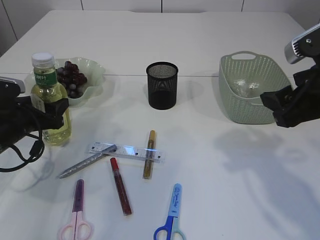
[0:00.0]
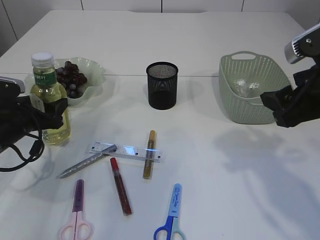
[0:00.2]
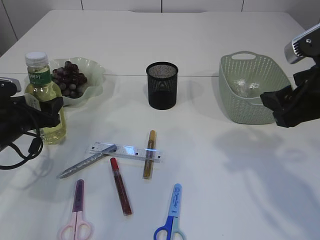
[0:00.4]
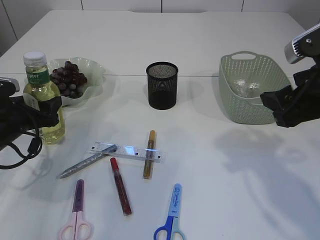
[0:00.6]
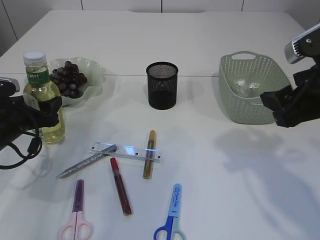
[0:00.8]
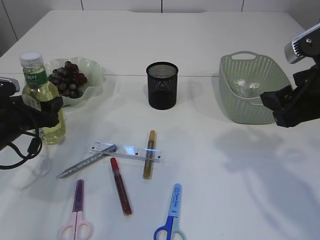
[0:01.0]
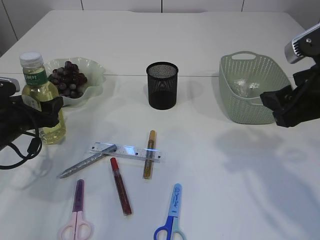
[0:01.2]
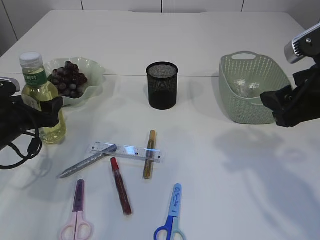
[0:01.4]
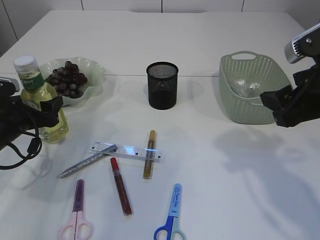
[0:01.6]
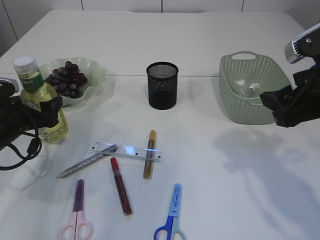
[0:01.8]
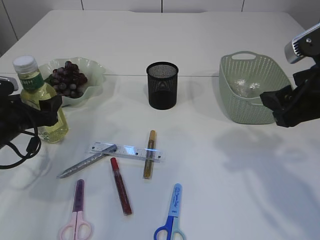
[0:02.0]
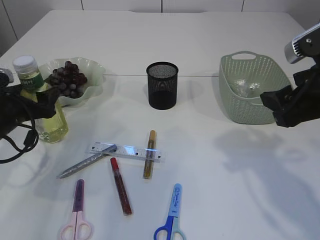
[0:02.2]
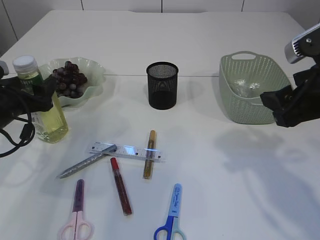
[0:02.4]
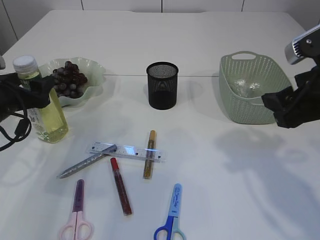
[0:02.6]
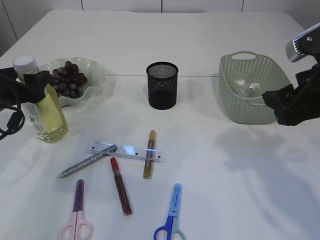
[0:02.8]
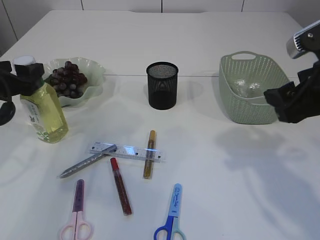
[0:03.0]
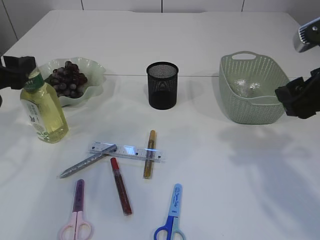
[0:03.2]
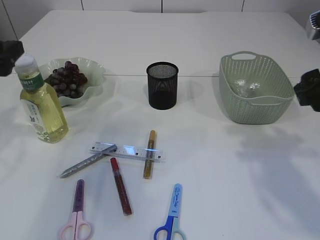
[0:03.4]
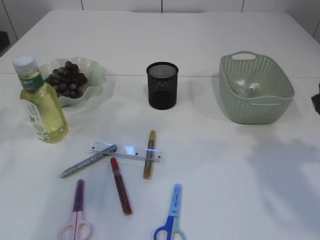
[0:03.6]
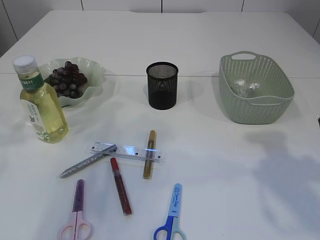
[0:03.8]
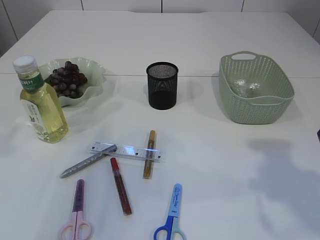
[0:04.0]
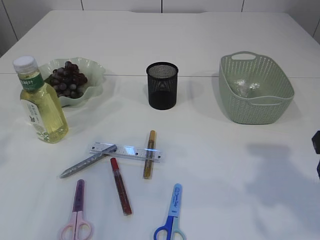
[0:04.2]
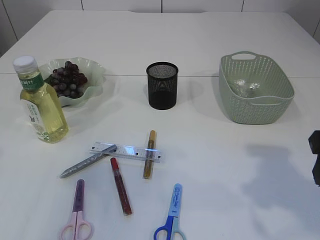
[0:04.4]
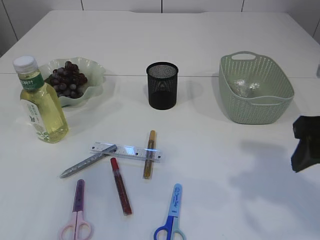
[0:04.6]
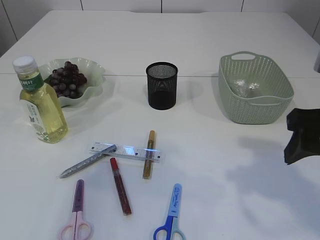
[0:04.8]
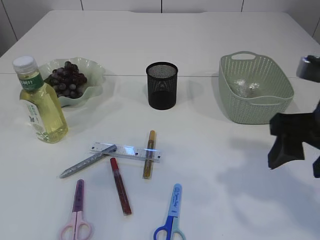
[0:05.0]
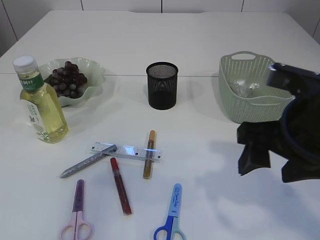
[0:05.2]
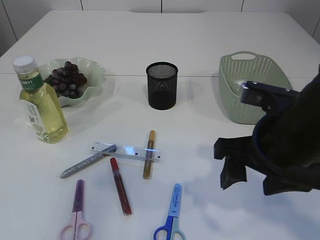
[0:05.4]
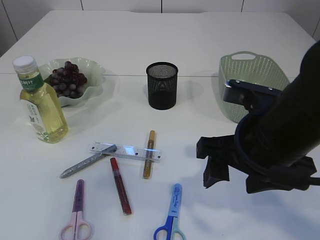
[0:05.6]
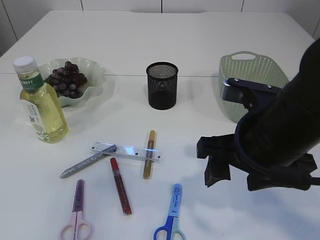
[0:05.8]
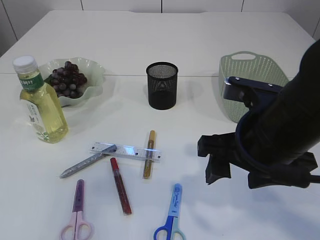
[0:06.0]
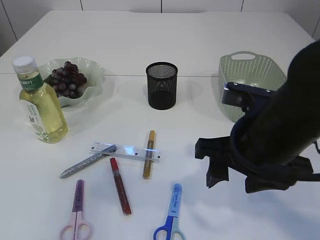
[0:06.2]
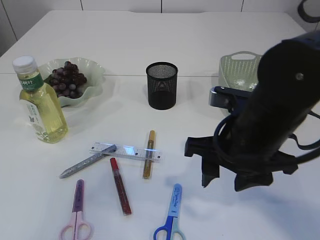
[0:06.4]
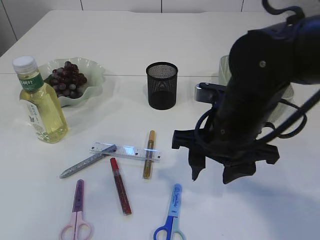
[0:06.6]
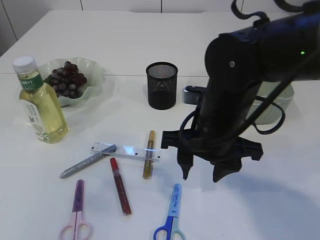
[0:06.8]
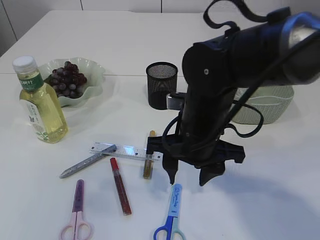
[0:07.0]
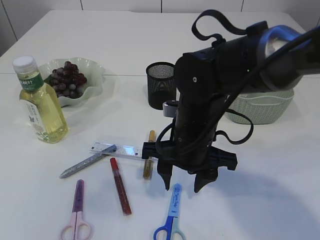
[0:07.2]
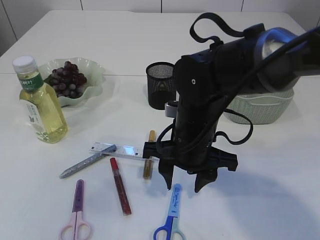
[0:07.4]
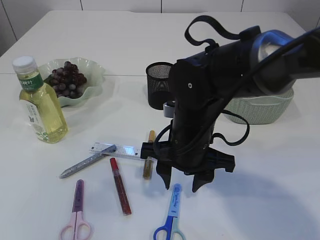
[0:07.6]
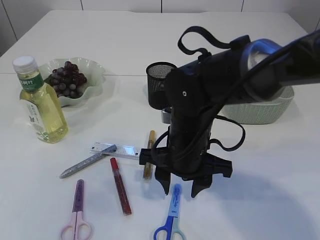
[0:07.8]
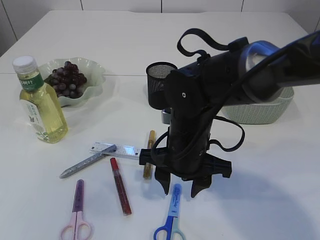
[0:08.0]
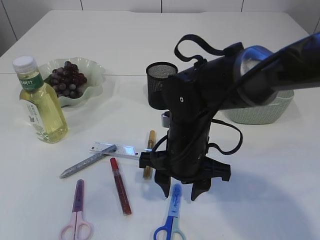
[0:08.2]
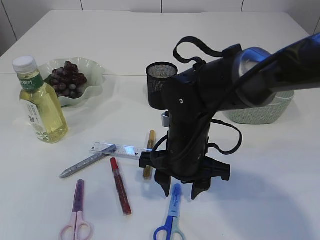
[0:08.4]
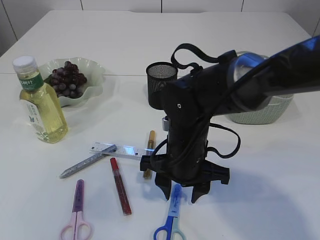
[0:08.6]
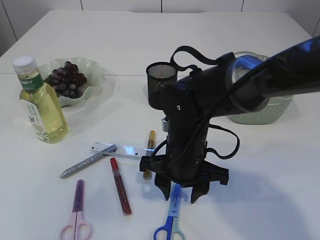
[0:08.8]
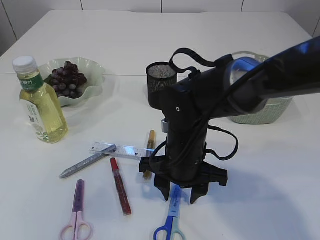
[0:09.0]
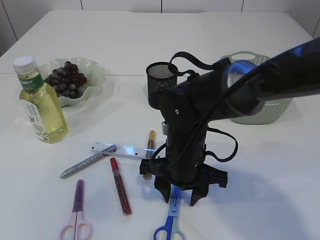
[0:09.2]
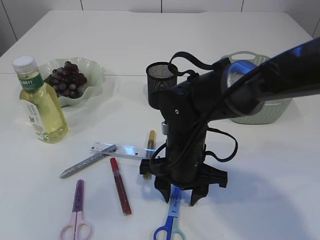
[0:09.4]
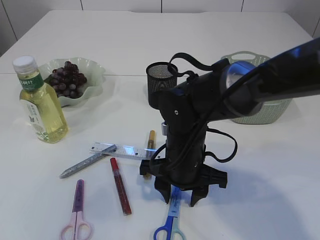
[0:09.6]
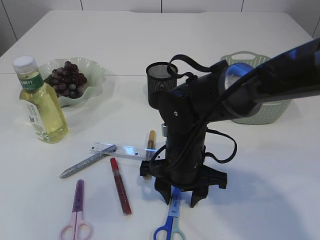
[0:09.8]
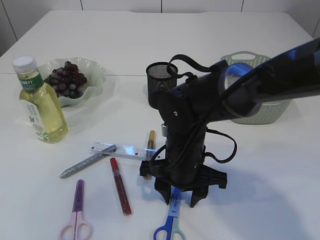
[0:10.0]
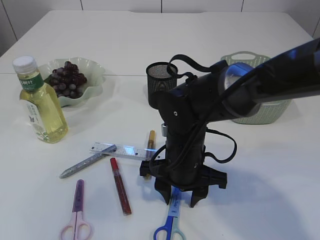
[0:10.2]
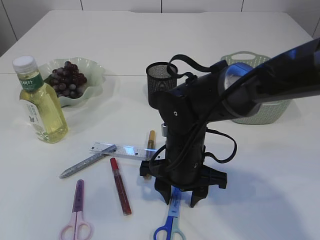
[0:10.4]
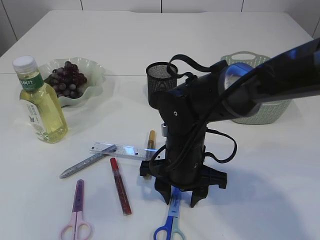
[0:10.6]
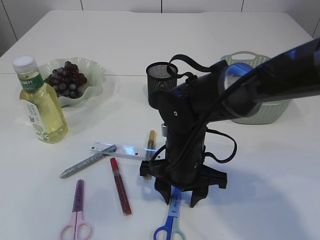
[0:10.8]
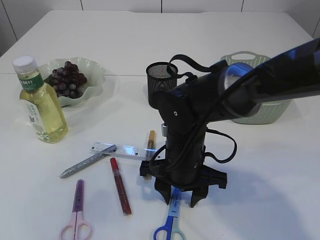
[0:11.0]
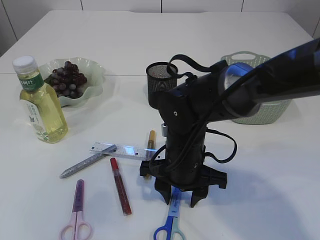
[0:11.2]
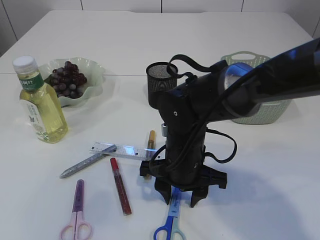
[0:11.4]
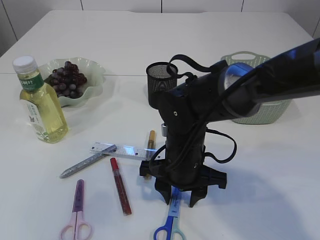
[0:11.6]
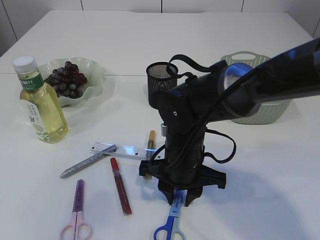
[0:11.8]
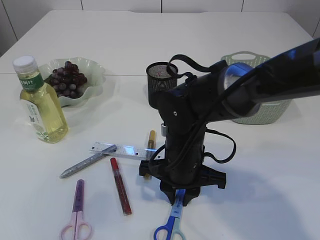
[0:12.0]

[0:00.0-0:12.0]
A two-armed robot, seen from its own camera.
Step, 0:00.0 to 0:03.4: Place the bottle.
0:00.0 to 0:01.6: Neither gripper changes place.
0:01.6 to 0:03.0: The left gripper travels upward by some 10 cm.
0:03.0 to 0:04.4: The right gripper ends up approximately 5 cm from where it was; the left gripper is displaced backward and upward by approximately 20 cm.
0:04.4 to 0:06.0: The right gripper moves to the left, about 10 cm; the left gripper travels upward by some 5 cm.
0:06.0 to 0:07.6: The right gripper is displaced to the left, forward and downward by approximately 15 cm.
0:07.6 to 0:09.0: The grippers stay close to where they were, moving slightly.
0:09.0 to 0:10.4: Both grippers stay about where they are.
0:10.4 to 0:12.0: The right gripper closes up.

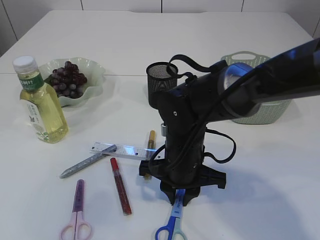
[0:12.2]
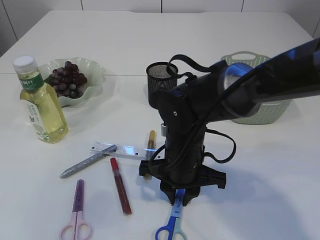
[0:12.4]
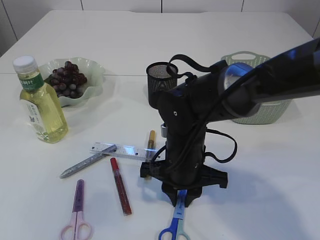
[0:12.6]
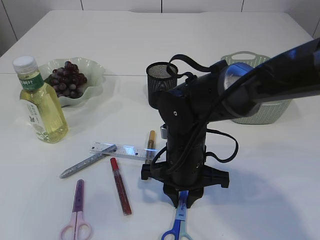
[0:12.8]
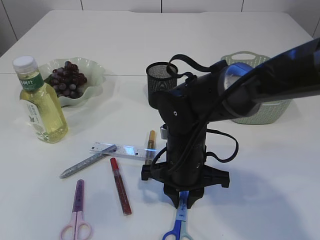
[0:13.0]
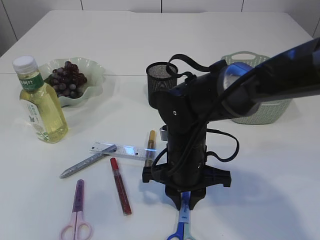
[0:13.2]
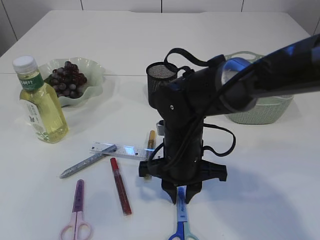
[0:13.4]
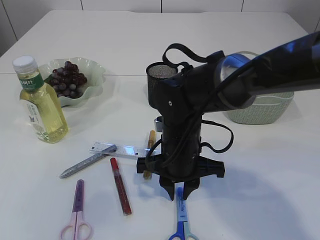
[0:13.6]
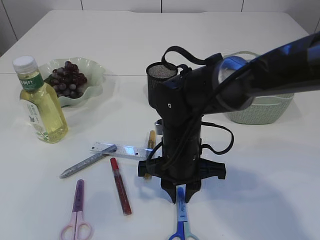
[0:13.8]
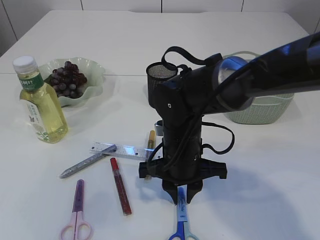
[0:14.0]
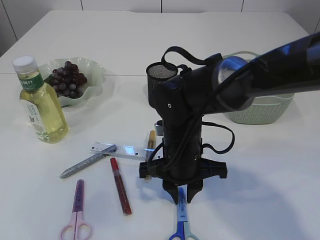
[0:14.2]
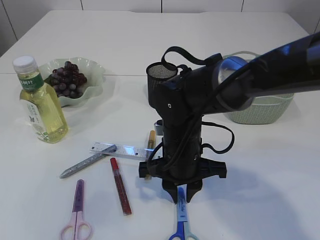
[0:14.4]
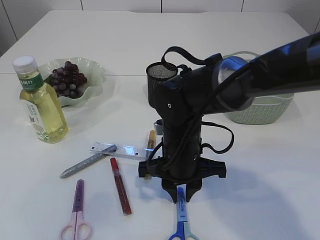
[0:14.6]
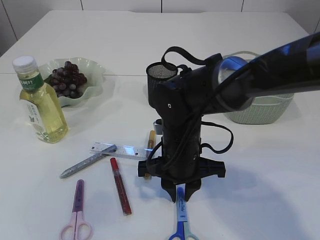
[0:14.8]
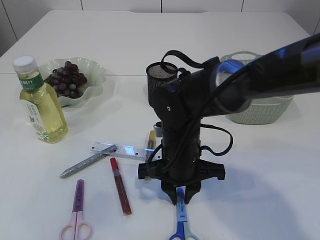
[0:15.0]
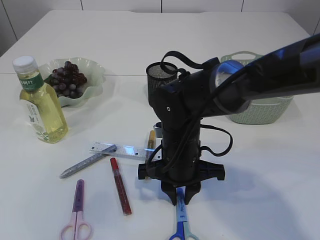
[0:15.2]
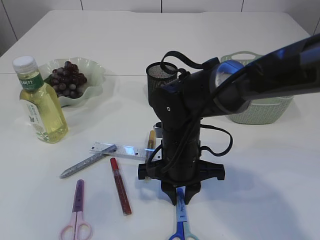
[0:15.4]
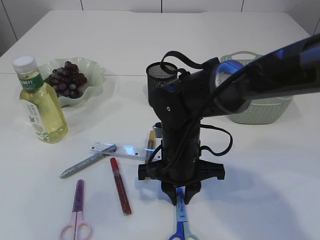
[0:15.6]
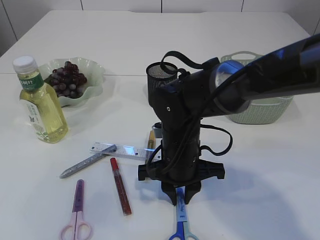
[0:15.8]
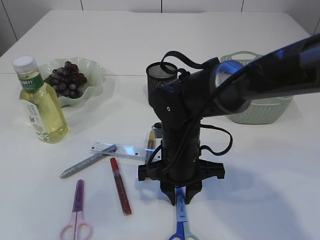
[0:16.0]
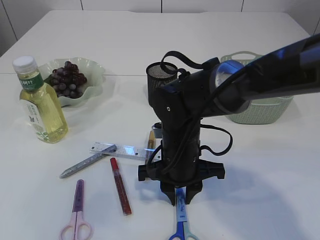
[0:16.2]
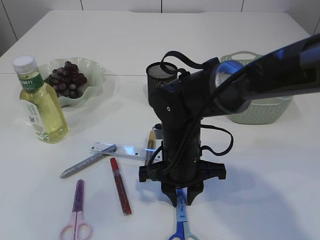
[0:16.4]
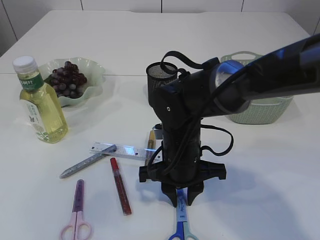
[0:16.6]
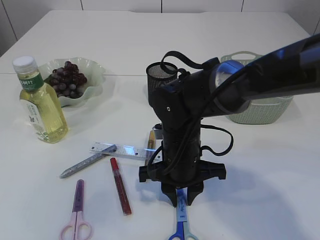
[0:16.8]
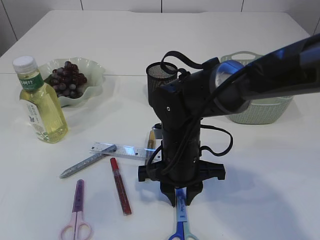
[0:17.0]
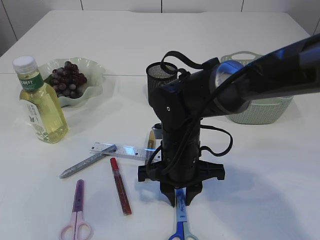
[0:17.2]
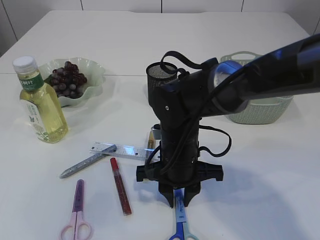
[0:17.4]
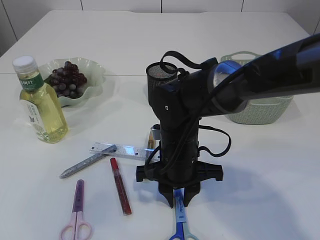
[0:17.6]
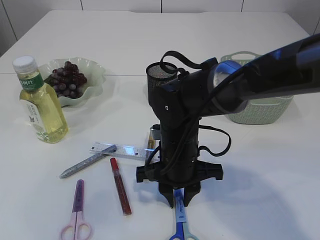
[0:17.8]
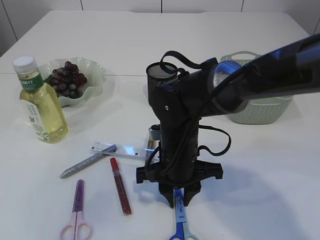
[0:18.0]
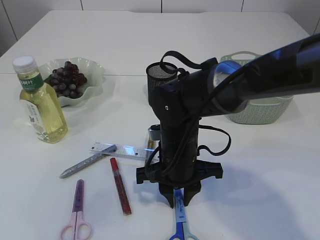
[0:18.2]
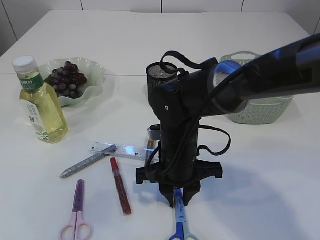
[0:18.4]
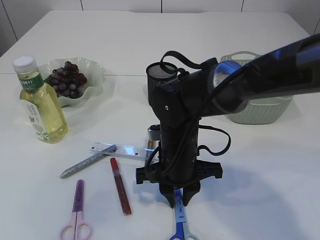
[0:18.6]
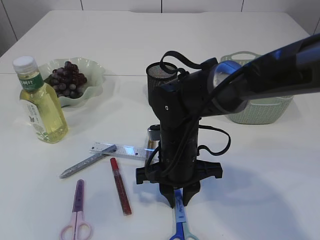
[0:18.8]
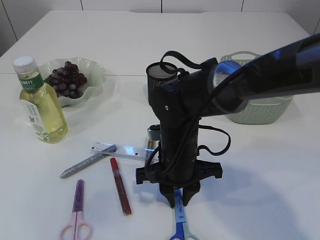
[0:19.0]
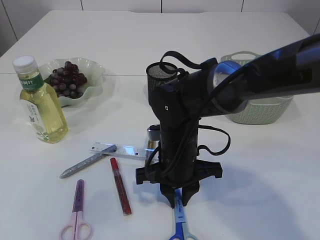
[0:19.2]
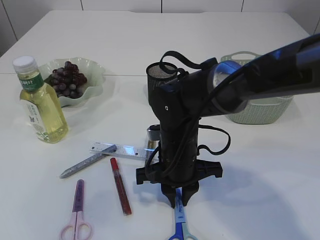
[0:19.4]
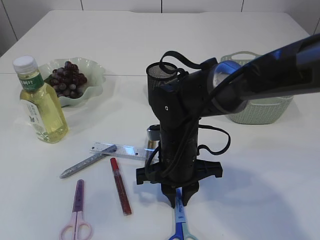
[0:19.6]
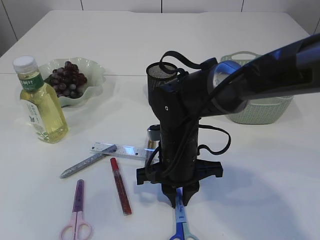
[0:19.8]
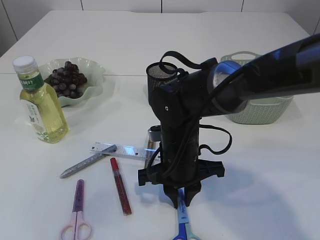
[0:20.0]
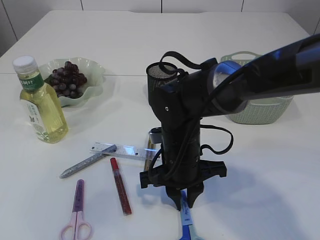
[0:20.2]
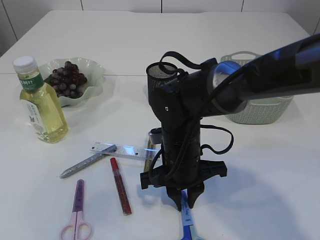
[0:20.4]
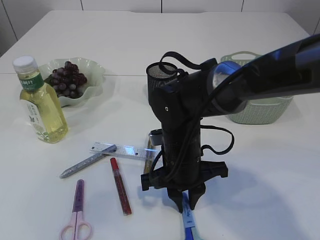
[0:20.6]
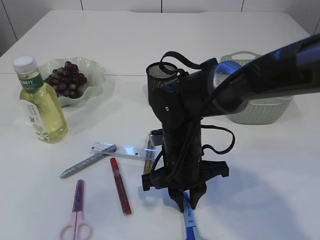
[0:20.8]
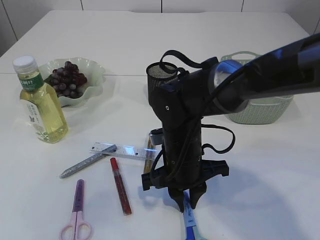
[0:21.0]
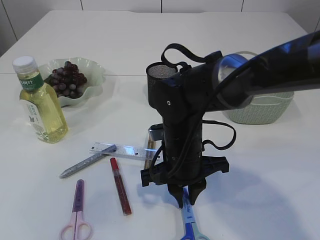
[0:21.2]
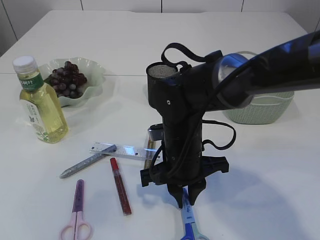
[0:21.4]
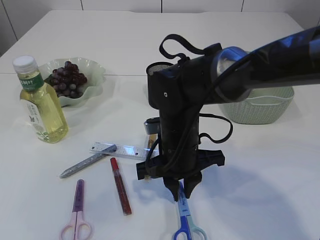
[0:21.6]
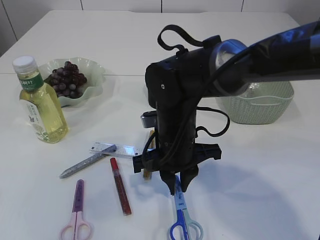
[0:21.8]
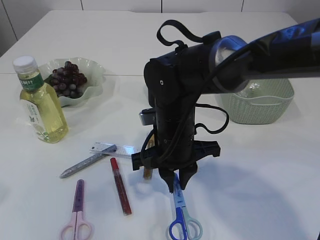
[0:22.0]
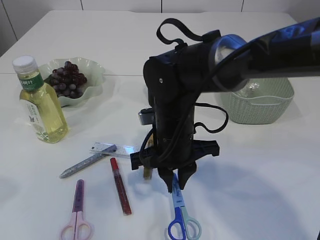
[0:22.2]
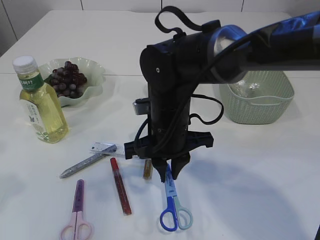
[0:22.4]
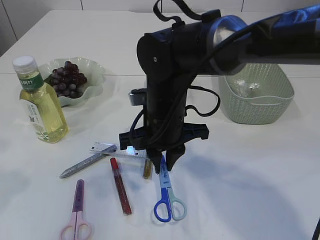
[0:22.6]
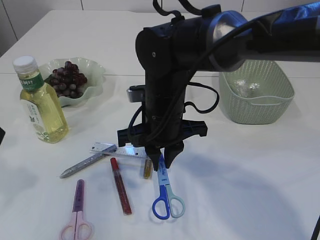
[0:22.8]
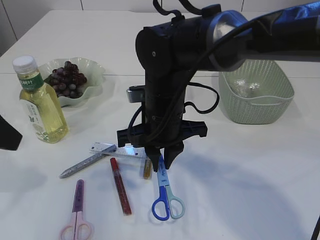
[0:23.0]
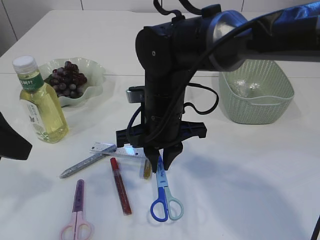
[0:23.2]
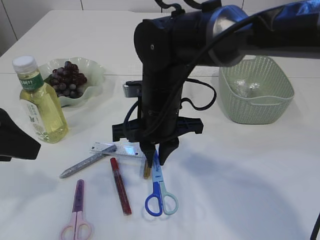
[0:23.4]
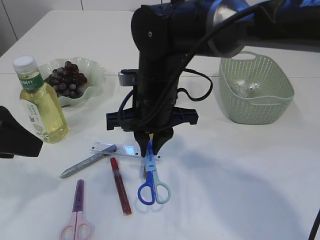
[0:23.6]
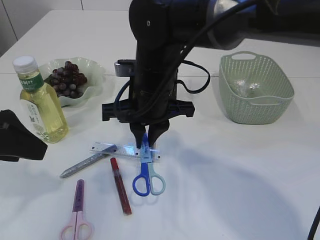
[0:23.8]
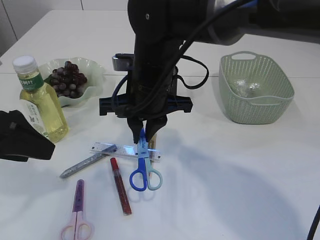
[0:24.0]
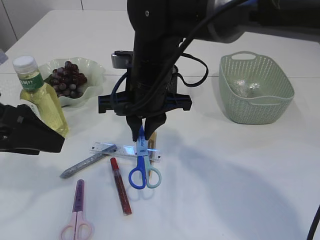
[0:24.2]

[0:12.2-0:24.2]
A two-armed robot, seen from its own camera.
Step, 0:12.2 to 0:22.6: pick up the blue scissors.
0:12.2 to 0:13.8: The grippers make only small movements.
0:13.8 to 0:16.6: The two grippers keep their place.
0:16.6 to 0:19.8: Both grippers stay about where they are.
0:19.8 to 0:21.2: There are only small adjustments of the grippers.
0:21.2 to 0:22.6: The right gripper moves upward, about 5 cm. The left gripper heads forward, covering some 5 cm.
0:22.6 to 0:24.2: The right gripper goes roughly 5 cm upward. Meanwhile the left gripper shifts approximately 5 cm downward.
